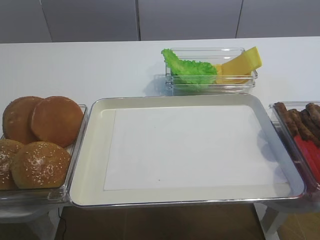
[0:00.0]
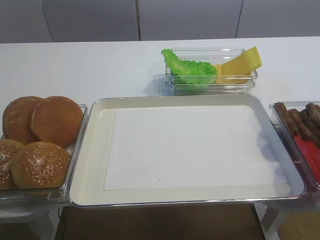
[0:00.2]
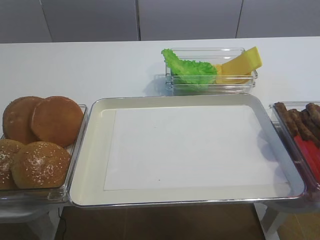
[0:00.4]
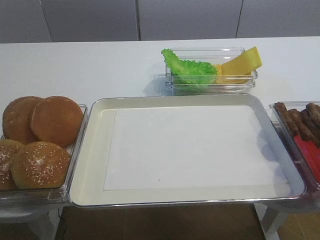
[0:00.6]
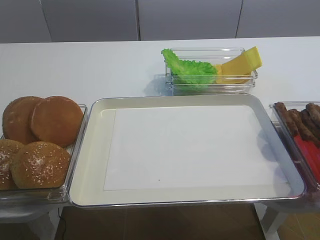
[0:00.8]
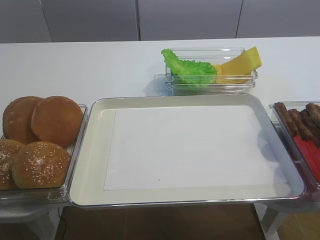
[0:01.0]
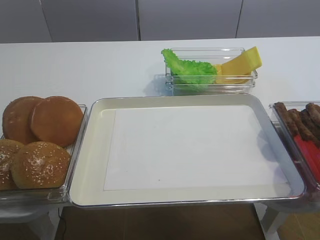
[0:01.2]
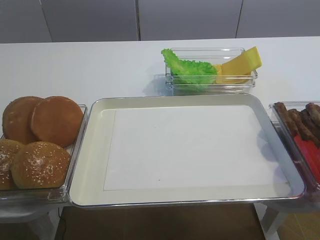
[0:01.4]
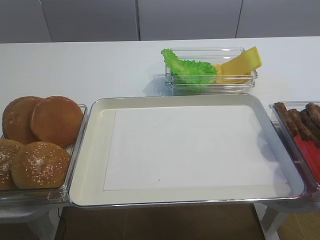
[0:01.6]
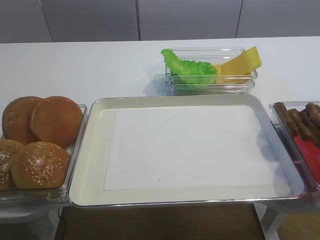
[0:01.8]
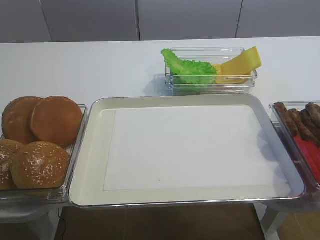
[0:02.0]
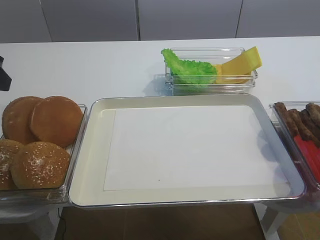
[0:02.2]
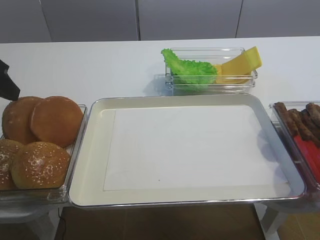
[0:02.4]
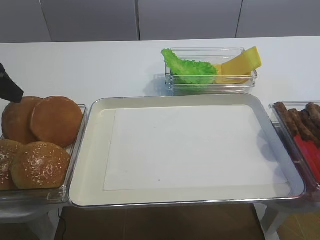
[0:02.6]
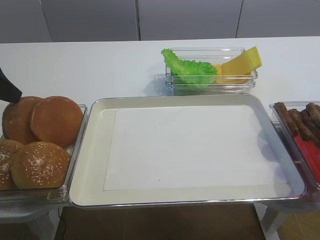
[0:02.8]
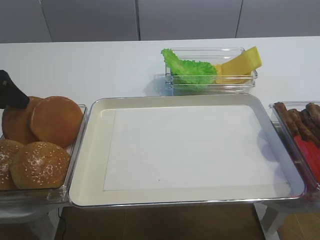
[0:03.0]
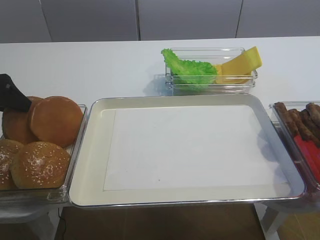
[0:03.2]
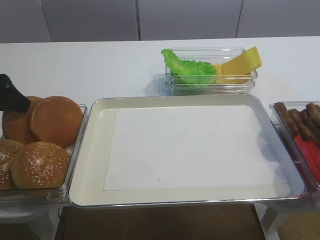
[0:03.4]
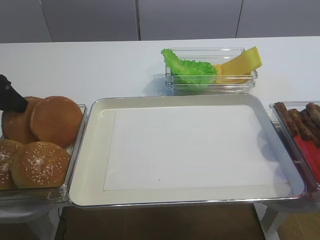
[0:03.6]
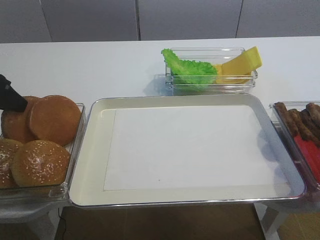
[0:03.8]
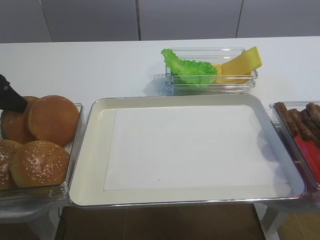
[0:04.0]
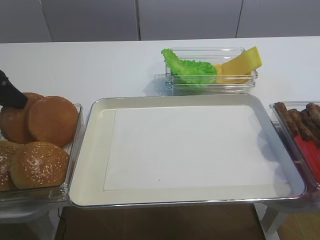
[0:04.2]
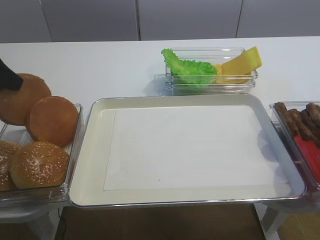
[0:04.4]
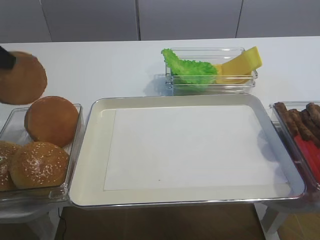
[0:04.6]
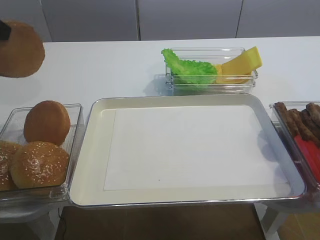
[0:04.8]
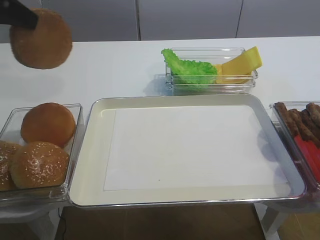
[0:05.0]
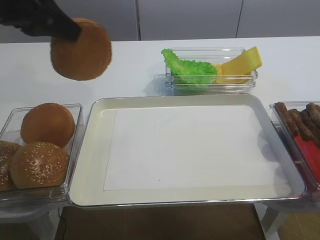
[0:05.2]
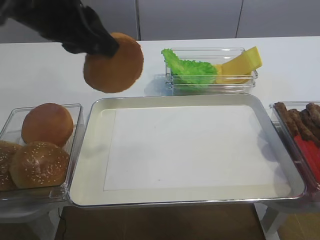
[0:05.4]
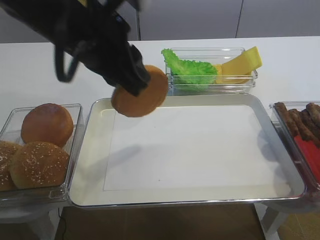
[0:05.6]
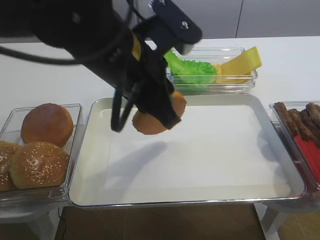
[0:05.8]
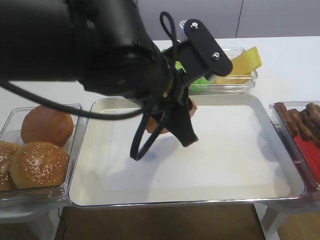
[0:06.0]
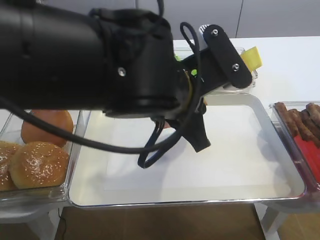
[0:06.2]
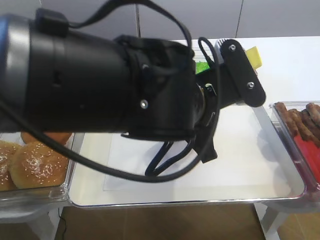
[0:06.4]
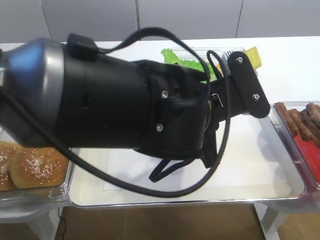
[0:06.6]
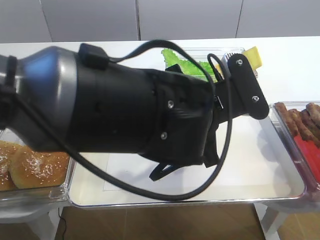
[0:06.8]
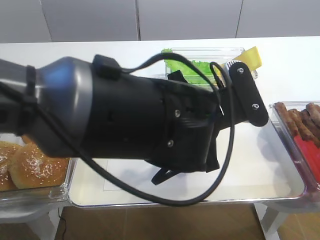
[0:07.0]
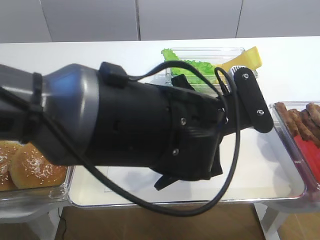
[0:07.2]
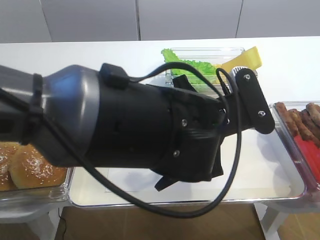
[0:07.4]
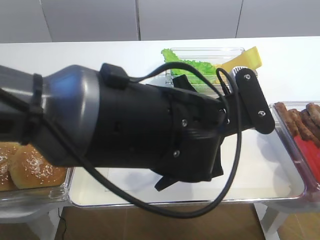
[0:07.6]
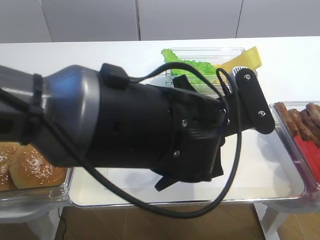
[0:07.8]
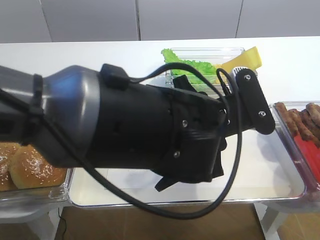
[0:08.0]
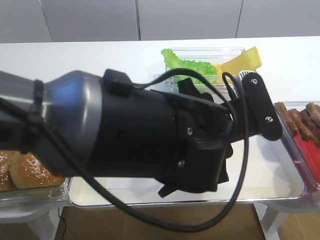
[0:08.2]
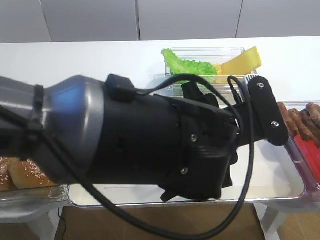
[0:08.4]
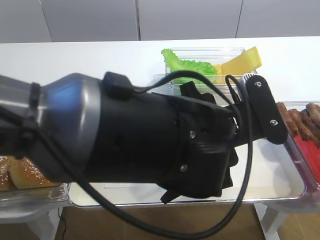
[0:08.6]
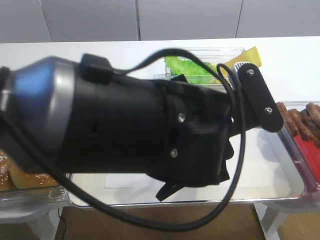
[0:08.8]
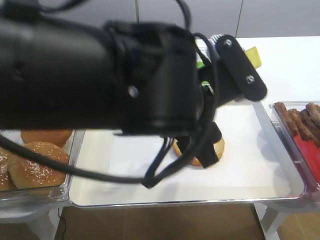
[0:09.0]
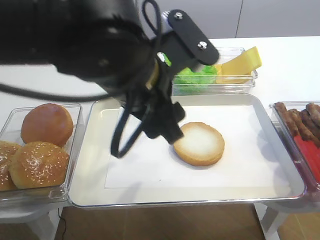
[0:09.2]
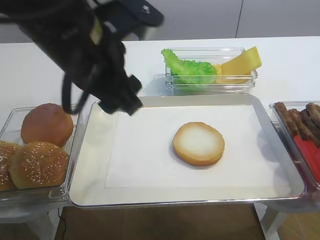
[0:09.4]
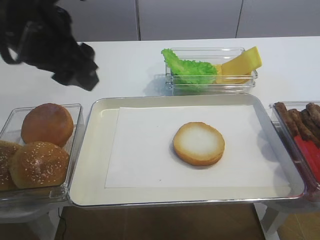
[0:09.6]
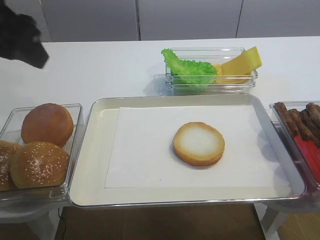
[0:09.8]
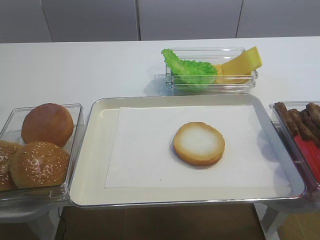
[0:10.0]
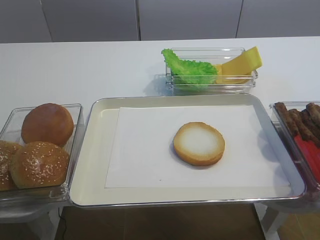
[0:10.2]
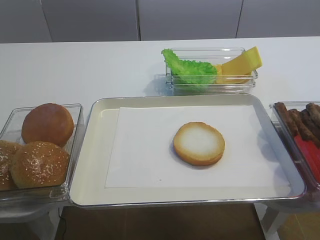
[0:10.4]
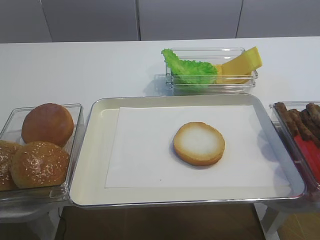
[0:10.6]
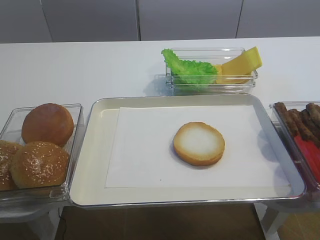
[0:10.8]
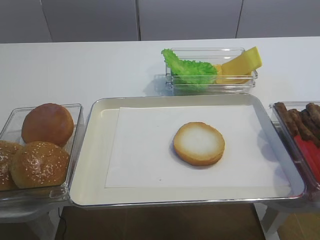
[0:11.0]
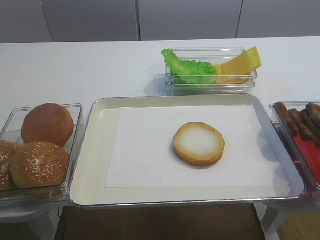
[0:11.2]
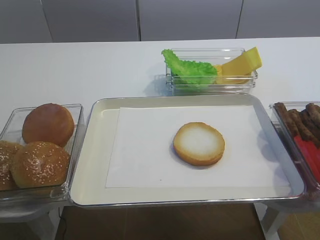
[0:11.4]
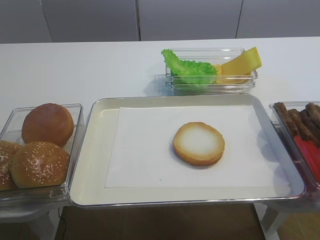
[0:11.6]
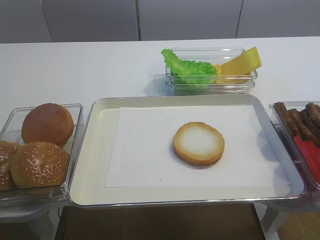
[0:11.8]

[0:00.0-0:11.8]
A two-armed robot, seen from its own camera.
Step, 0:00.0 to 0:04.4: Pick up the bread slice with the left gripper.
Step, 0:04.6 to 0:09.0: Place the bread slice on the tray with the left gripper.
0:01.4 to 0:03.0: The left gripper shifts about 20 cm forward.
0:03.0 to 0:04.4: The left gripper is displaced upward by about 5 cm, and closes its fingers.
0:04.4 to 0:06.0: The left gripper shifts roughly 30 cm to the right.
0:06.0 to 0:07.4: The left gripper shifts by roughly 5 cm.
0:07.4 to 0:08.8: The left gripper opens up.
0:08.8 to 0:10.4: The left gripper is displaced to the left and backward by some 35 cm.

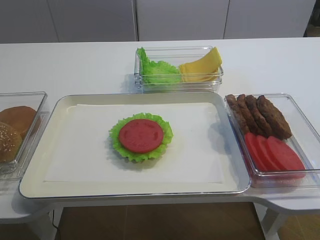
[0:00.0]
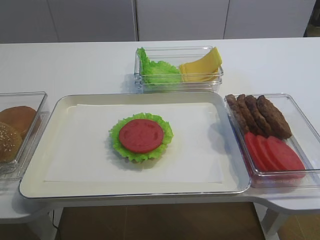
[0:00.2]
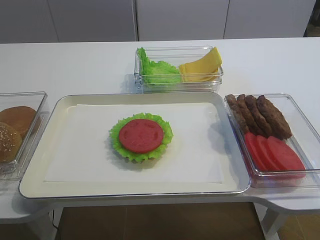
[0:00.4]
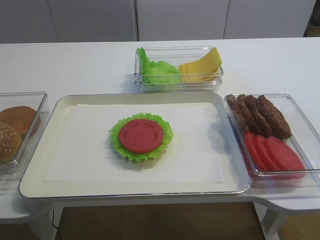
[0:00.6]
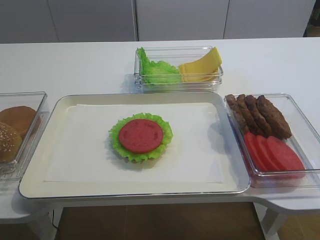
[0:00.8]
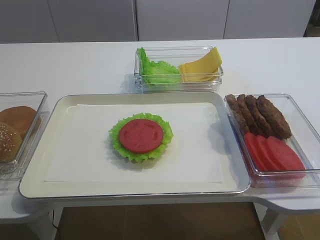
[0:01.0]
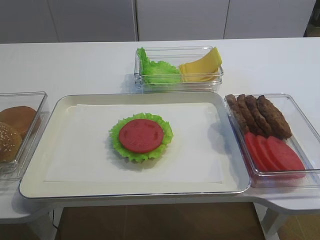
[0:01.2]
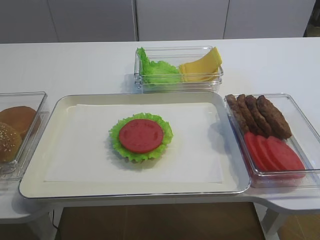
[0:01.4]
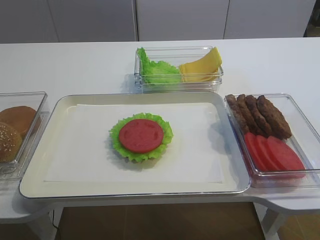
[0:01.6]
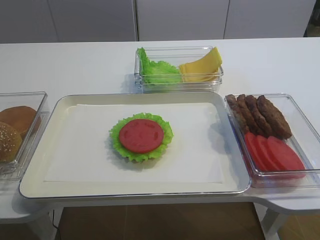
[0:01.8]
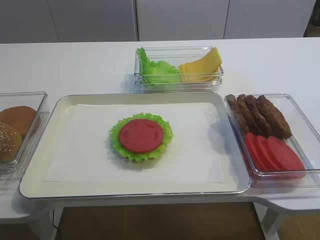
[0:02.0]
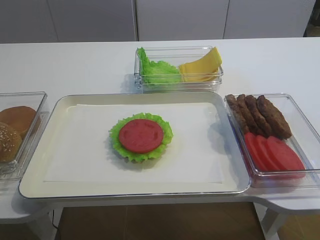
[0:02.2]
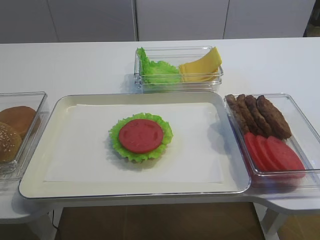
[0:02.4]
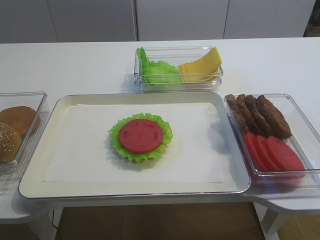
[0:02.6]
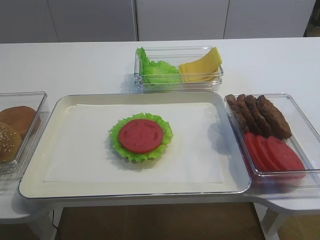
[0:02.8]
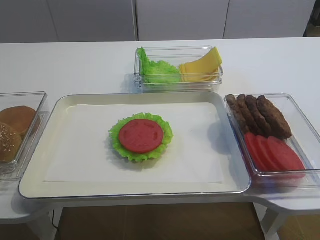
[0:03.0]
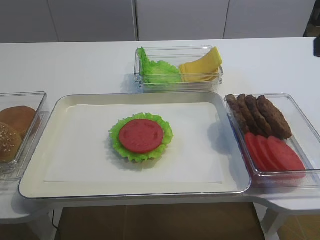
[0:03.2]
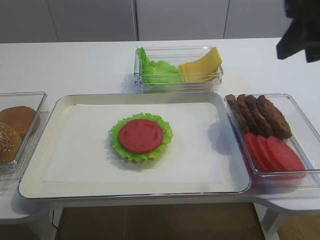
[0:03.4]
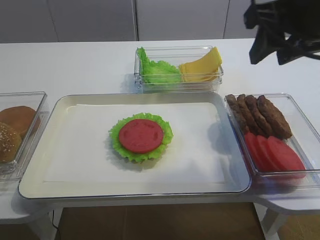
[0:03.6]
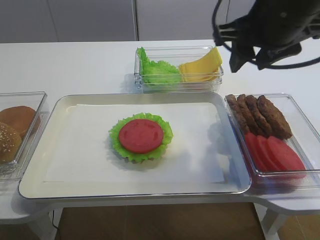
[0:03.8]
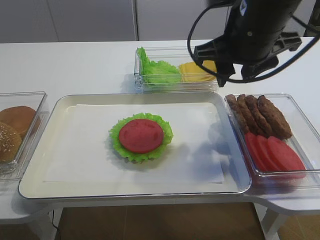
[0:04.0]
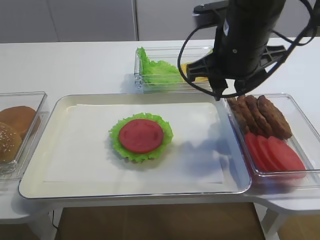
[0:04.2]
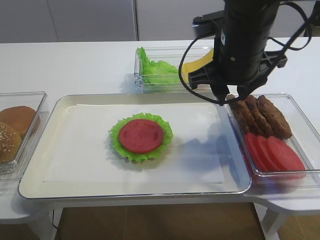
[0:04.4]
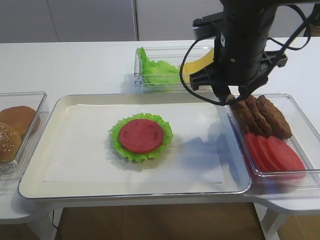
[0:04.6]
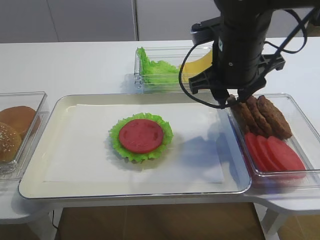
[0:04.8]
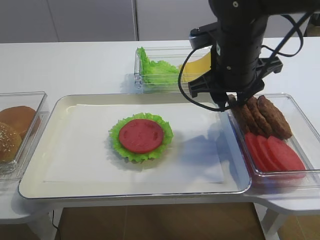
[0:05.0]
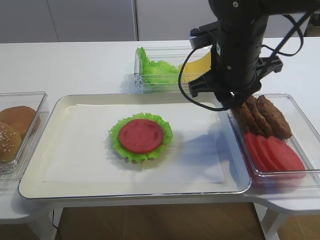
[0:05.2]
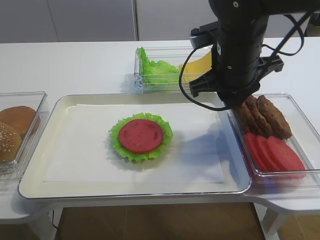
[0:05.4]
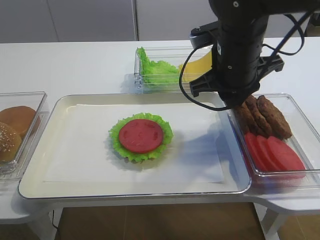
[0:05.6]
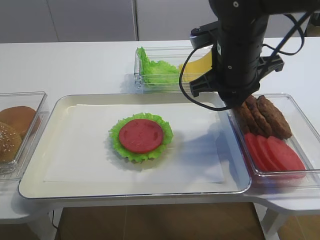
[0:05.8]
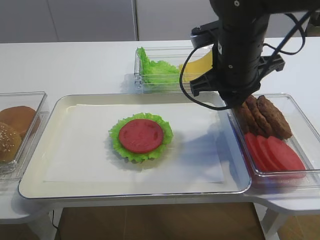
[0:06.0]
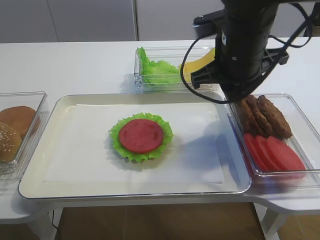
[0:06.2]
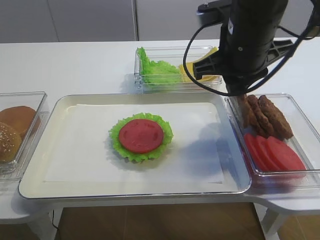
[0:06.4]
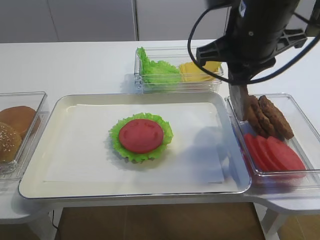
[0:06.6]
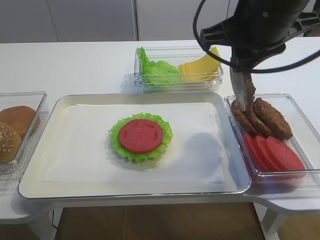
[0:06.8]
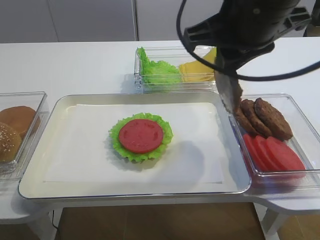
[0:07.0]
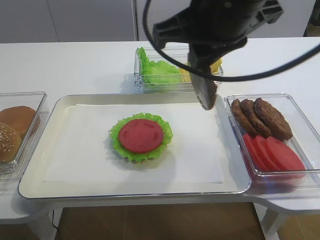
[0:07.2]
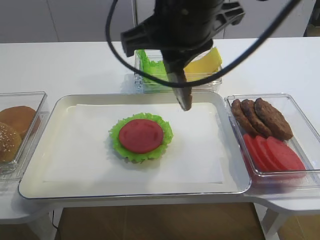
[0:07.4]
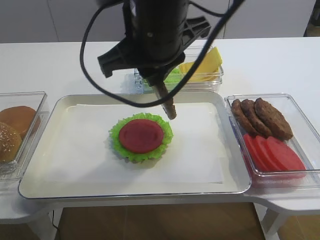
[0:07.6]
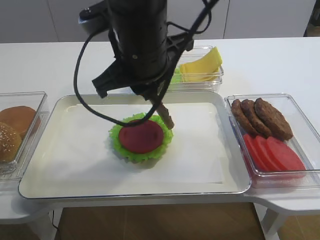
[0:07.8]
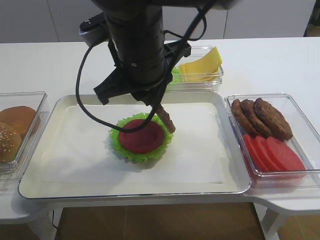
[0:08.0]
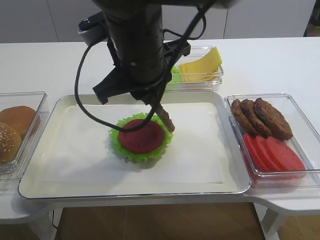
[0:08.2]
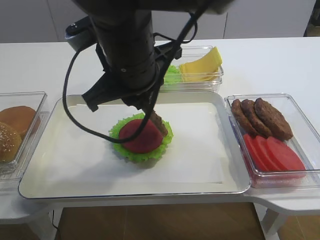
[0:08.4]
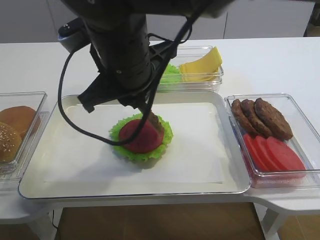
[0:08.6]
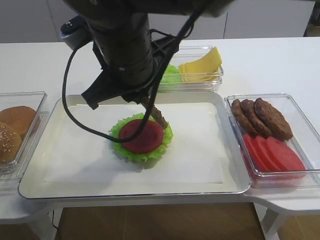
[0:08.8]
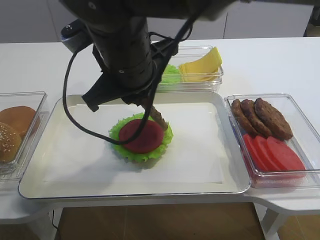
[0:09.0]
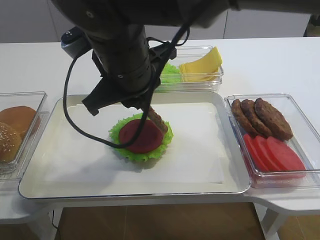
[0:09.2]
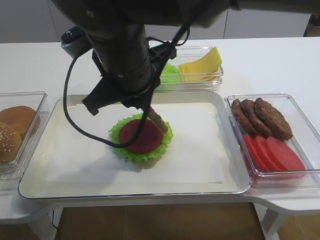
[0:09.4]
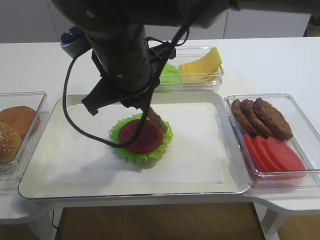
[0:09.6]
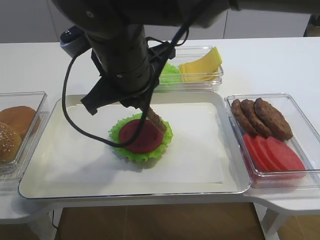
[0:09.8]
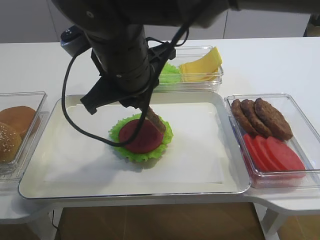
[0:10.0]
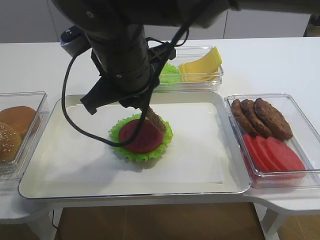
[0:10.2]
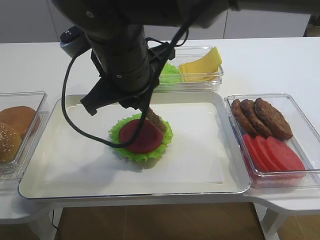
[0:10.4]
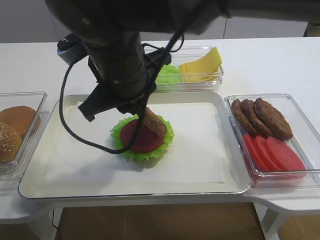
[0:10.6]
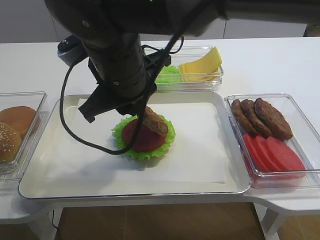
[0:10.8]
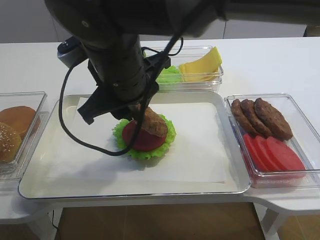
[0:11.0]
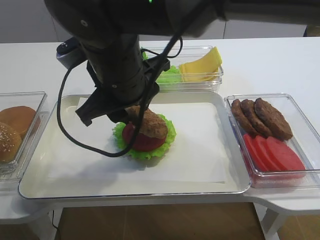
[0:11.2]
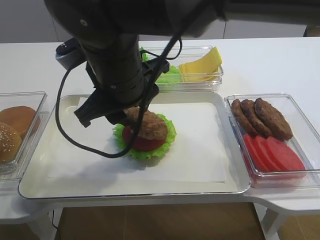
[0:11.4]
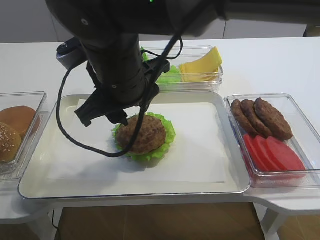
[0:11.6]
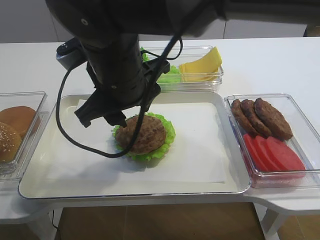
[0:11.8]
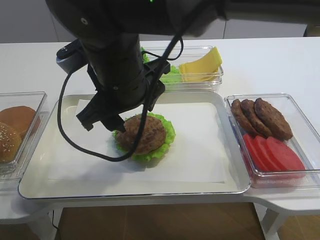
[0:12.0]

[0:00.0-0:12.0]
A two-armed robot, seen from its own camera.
Step, 0:00.0 to 0:06.6: Pick up the cutlet with the right gripper.
0:01.6 to 0:03.0: The right gripper heads forward and upward, covering some 15 cm.
0:03.0 to 0:04.4: The right gripper moves forward, to the left and downward, some 25 cm.
0:04.4 to 0:06.0: The right gripper closes its fingers.
0:06.0 to 0:07.6: The right gripper is displaced to the left, upward and backward by some 15 cm.
0:07.6 to 0:09.0: The right gripper changes place by some 5 cm.
0:09.0 to 0:10.4: Both grippers stay about where they are.
0:10.4 to 0:12.0: The right gripper opens its fingers.
